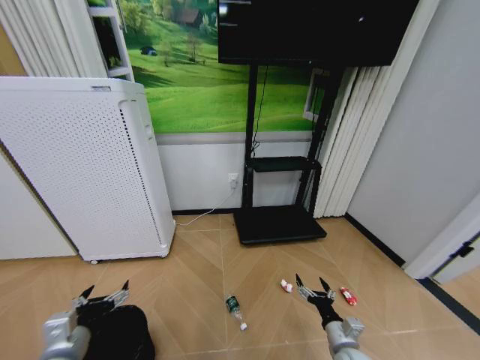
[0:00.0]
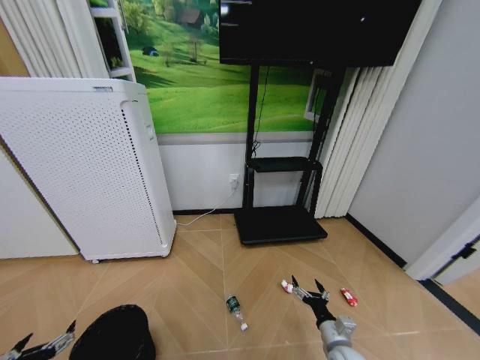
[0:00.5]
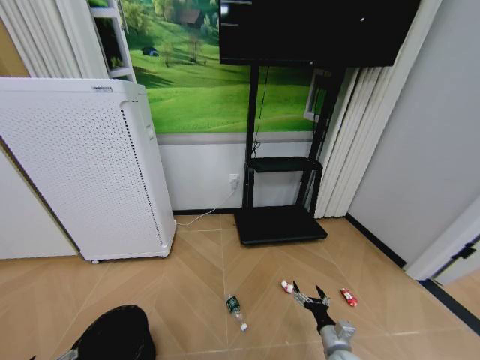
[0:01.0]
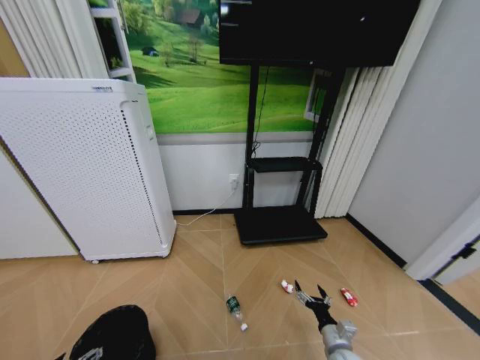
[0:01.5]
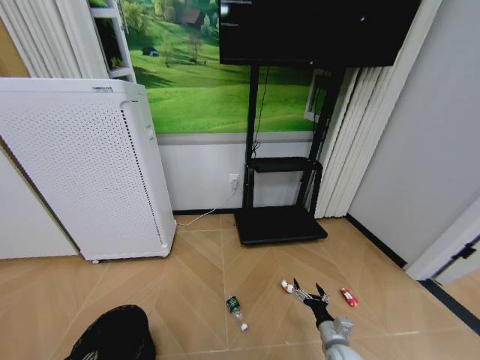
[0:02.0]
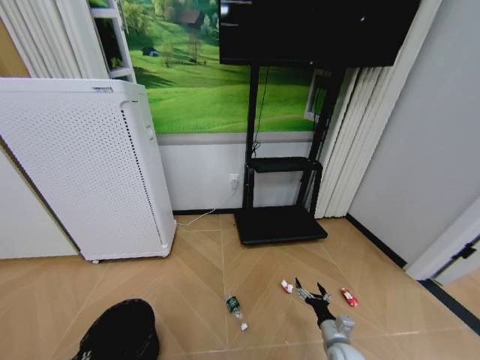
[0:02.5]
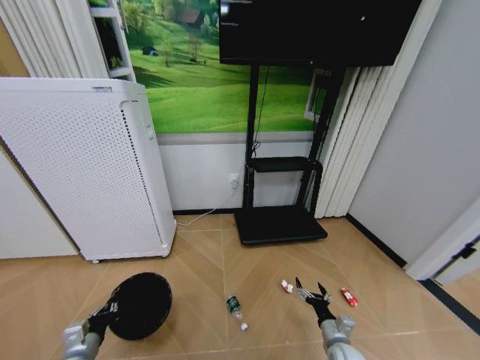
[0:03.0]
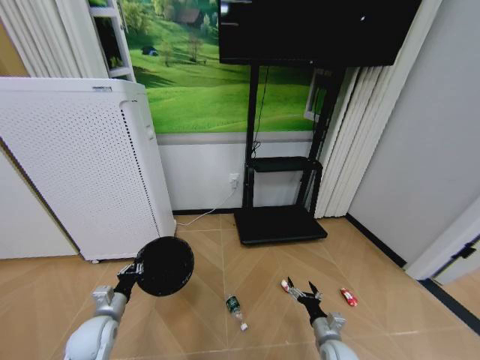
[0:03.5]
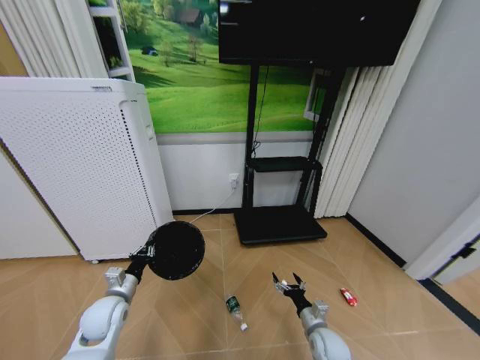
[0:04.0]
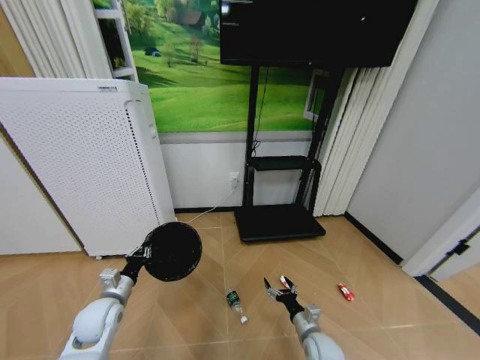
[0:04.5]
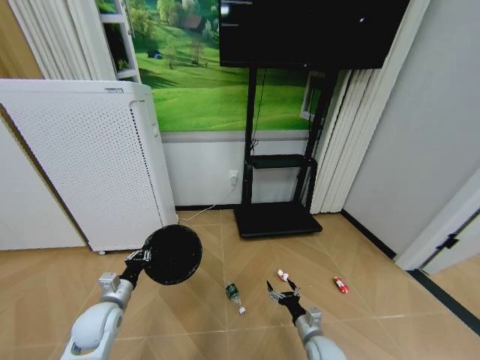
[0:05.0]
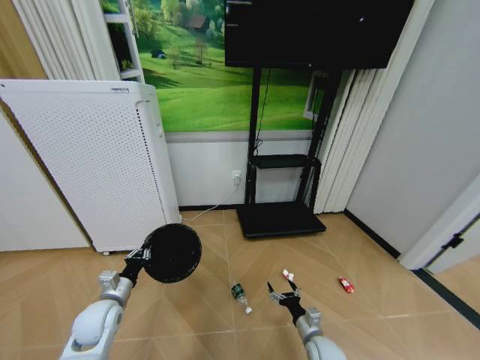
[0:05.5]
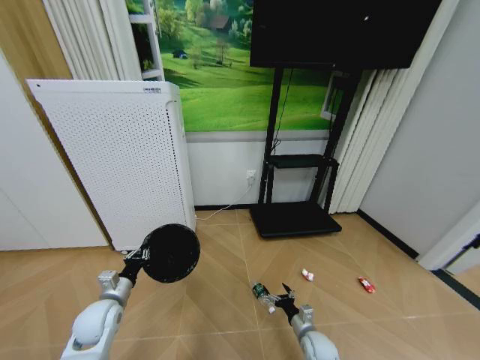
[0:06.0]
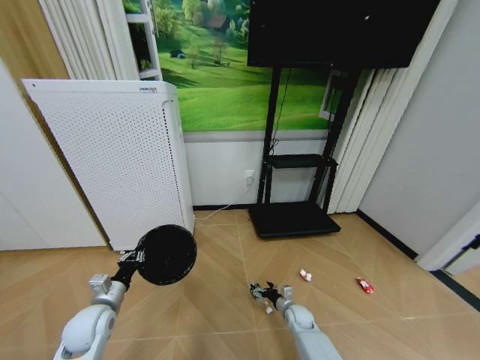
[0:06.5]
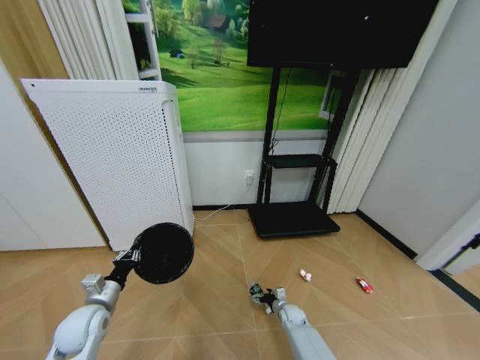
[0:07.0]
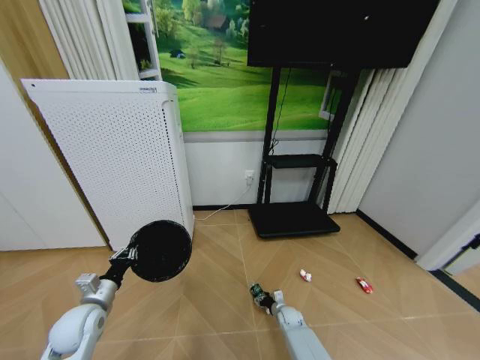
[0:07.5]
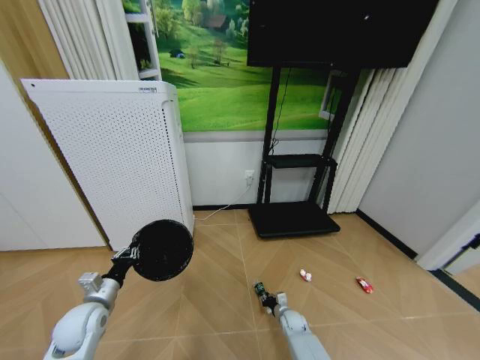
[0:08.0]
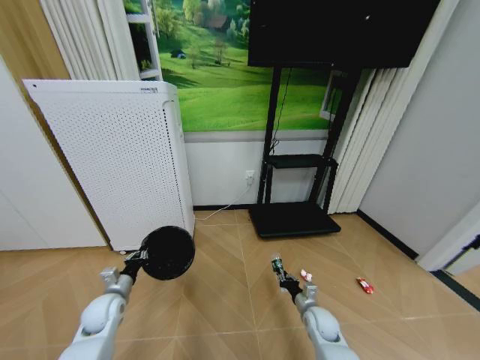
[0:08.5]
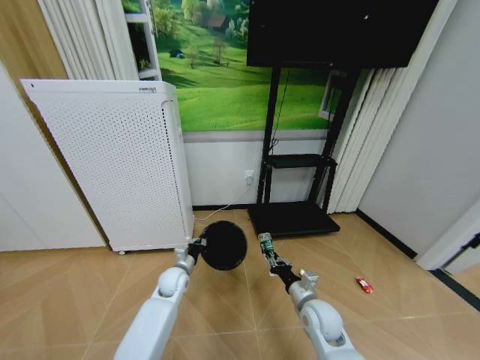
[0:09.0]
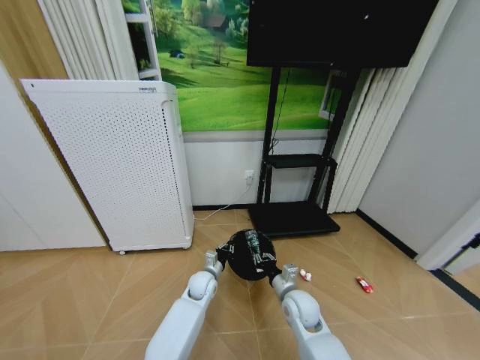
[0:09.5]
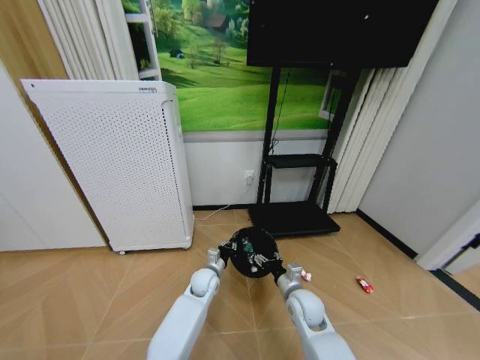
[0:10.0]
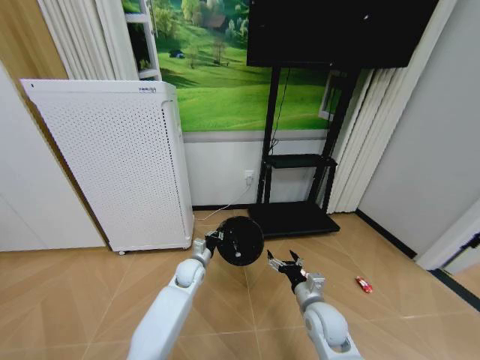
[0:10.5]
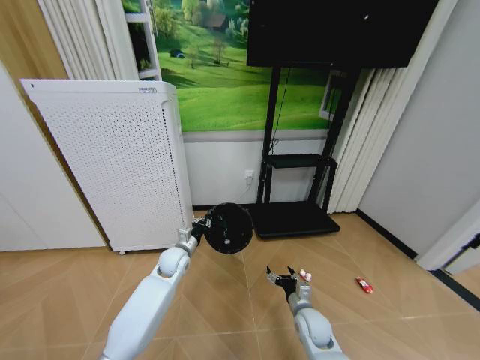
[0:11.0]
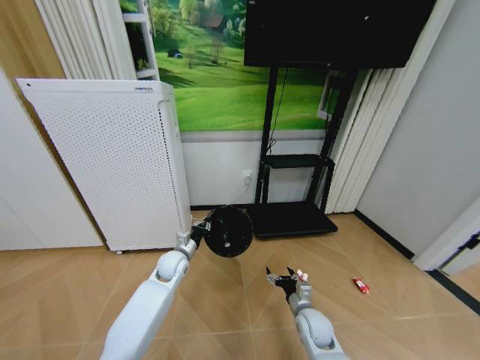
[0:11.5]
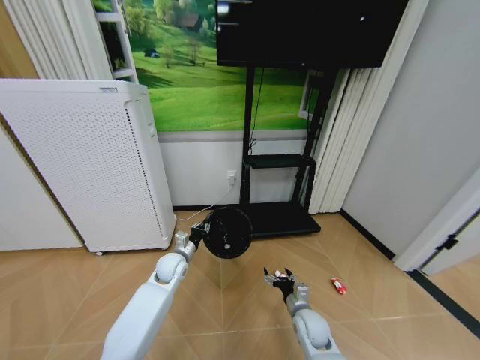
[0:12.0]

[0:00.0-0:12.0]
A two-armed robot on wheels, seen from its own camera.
Task of the whole recording: Pick up the trash bin and place the garbage on the floor into it.
0:00.0 to 0:02.0: The left gripper goes roughly 15 cm downward, to the left and backward, and closes its fingers. The right gripper is displaced downward by roughly 5 cm.
0:02.0 to 0:04.0: The left gripper moves forward and to the right, approximately 20 cm, and closes up, while the right gripper moves approximately 5 cm.
0:06.0 to 0:08.0: The right gripper is displaced forward and downward by approximately 15 cm, and closes its fingers.
0:08.0 to 0:10.0: The right gripper shifts roughly 25 cm upward, and opens its fingers, while the left gripper travels to the right and forward by some 30 cm.
0:10.0 to 0:12.0: The right gripper shifts some 5 cm downward; the left gripper is displaced to the left and upward by approximately 15 cm.

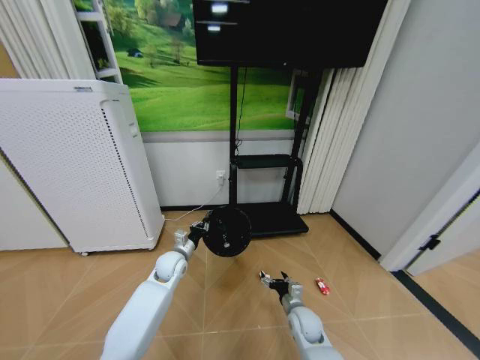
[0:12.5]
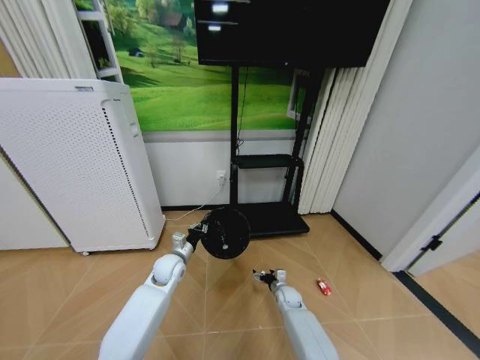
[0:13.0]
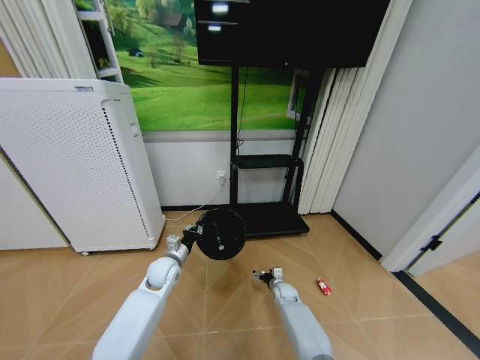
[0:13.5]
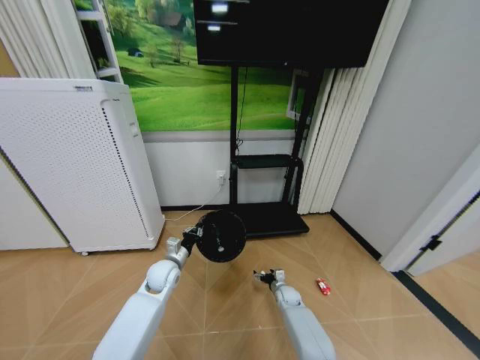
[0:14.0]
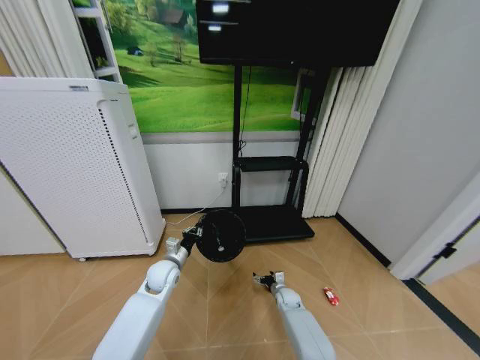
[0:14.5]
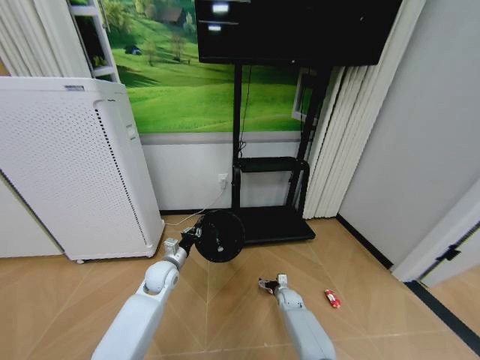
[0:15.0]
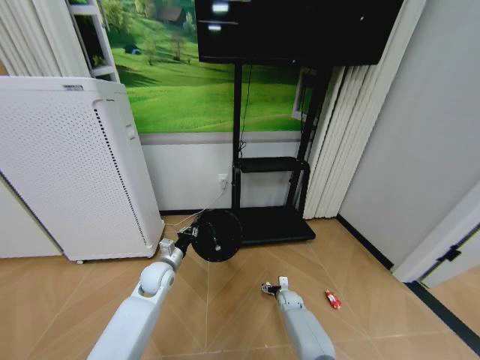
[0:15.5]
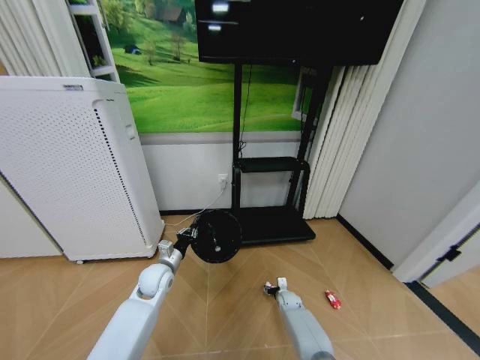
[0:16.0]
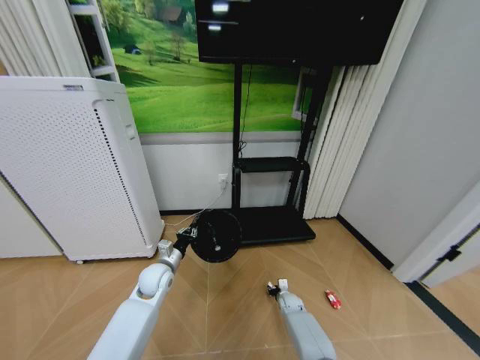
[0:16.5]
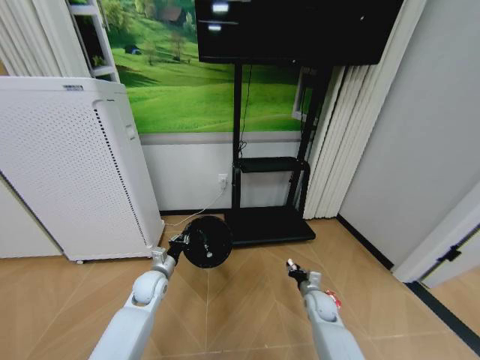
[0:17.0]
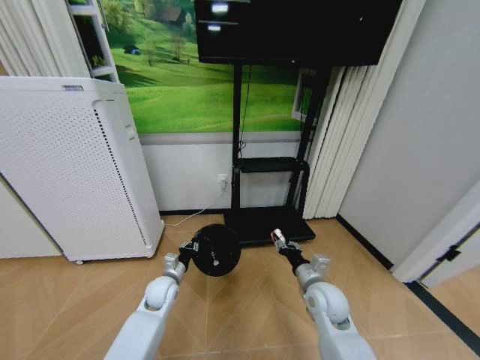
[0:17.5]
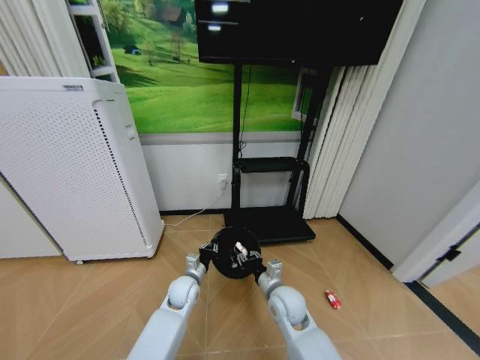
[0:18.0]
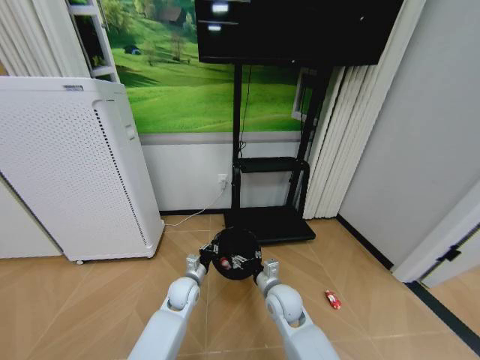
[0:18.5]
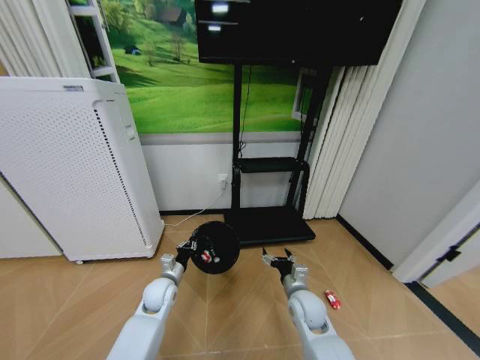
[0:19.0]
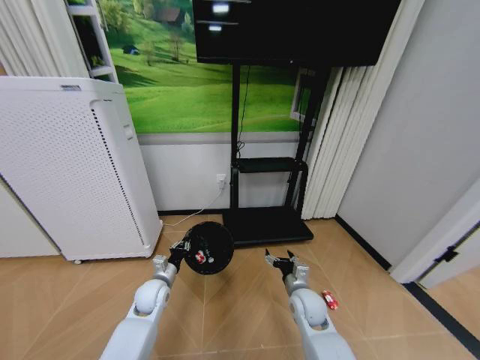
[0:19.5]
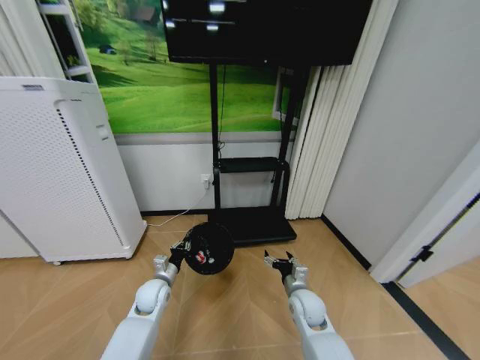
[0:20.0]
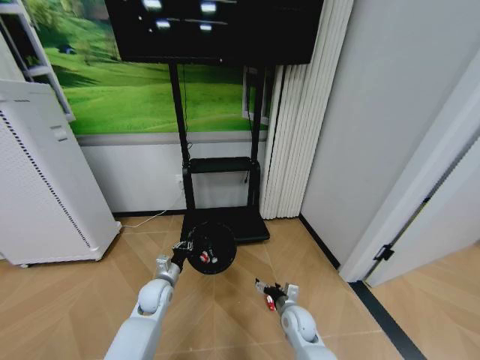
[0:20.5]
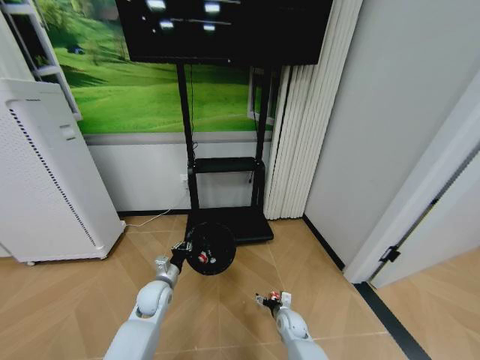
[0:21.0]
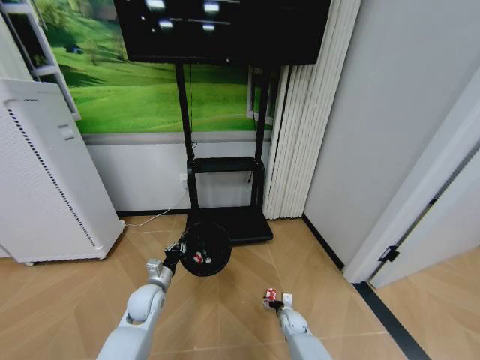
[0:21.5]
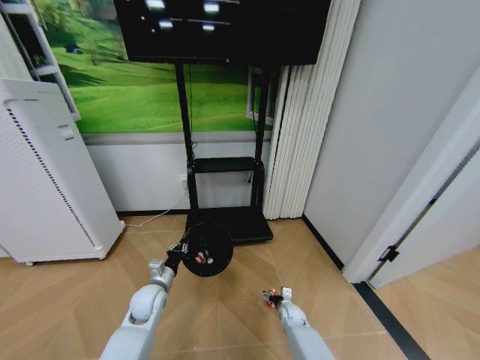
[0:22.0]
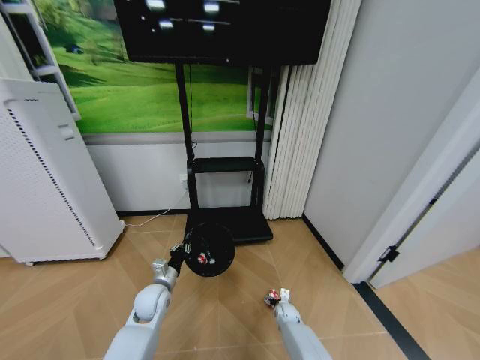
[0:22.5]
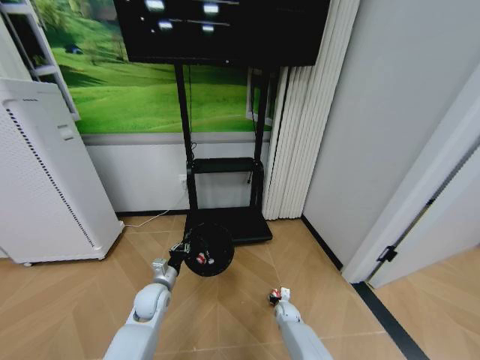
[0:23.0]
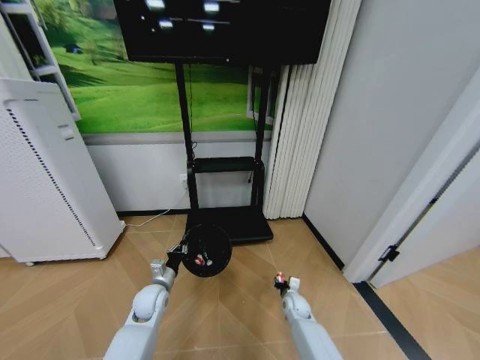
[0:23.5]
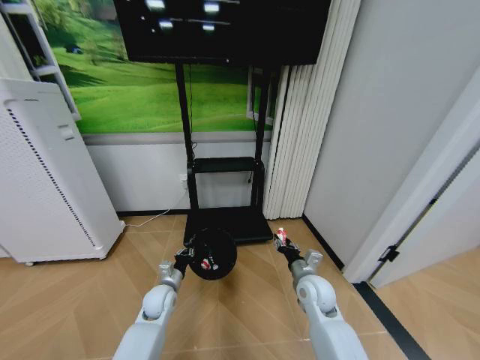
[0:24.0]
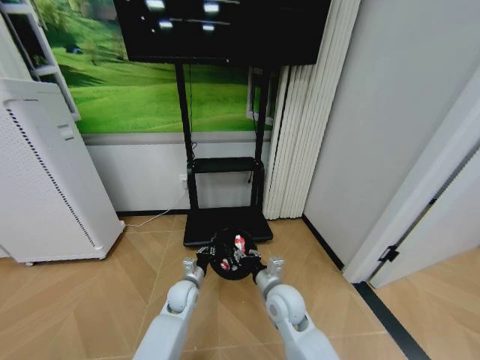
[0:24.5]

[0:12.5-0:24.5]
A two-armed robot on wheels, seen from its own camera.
Task of the whole recording: Pick up the trash bin and place the garbage on the floor into it.
0:12.5 to 0:14.5: The right gripper shifts about 15 cm forward and downward.
0:14.5 to 0:16.5: The right gripper closes its fingers.
0:16.5 to 0:18.5: The right gripper travels upward and to the left by roughly 30 cm, and opens its fingers. Meanwhile the left gripper goes roughly 10 cm to the right and downward.
0:18.5 to 0:20.5: The right gripper moves downward and to the right, about 10 cm; the left gripper moves to the left, some 10 cm.
0:20.5 to 0:22.5: The right gripper moves downward and forward, approximately 15 cm.
0:22.5 to 0:24.5: The left gripper goes roughly 10 cm to the right; the right gripper travels upward by about 30 cm, and closes.

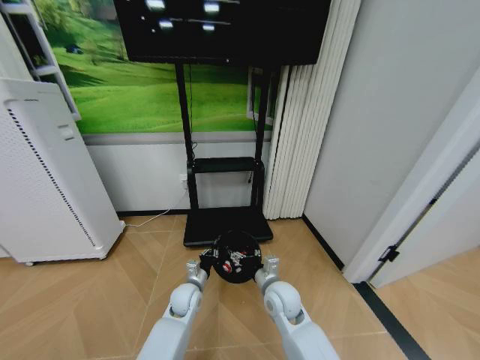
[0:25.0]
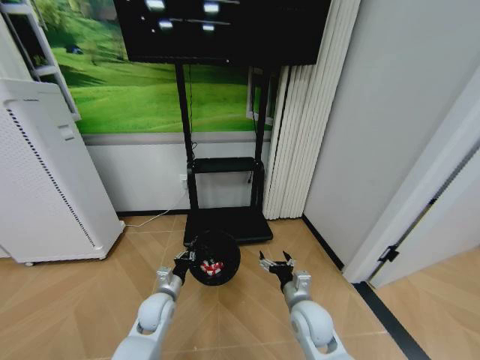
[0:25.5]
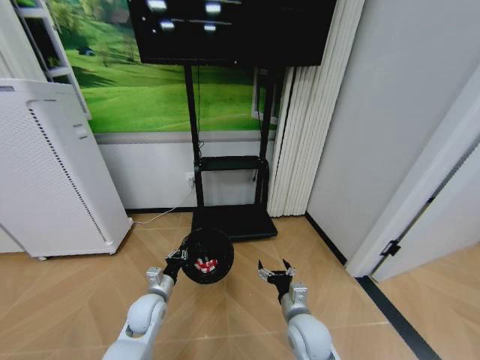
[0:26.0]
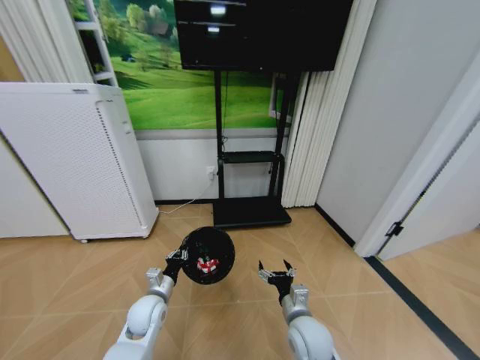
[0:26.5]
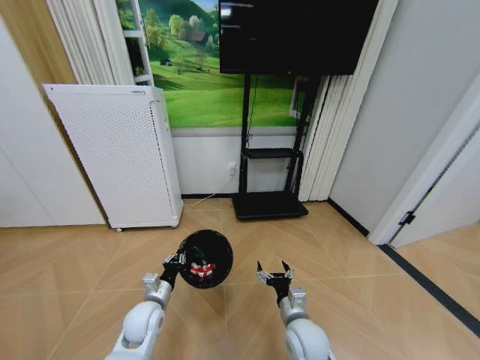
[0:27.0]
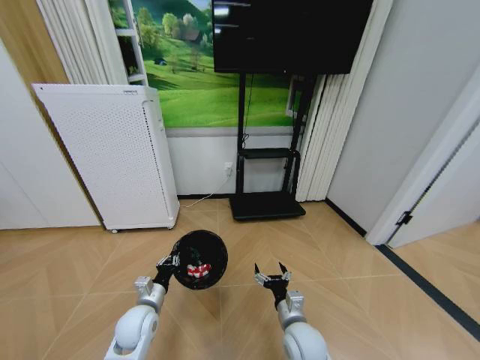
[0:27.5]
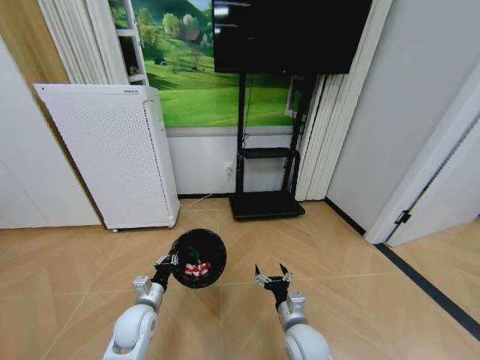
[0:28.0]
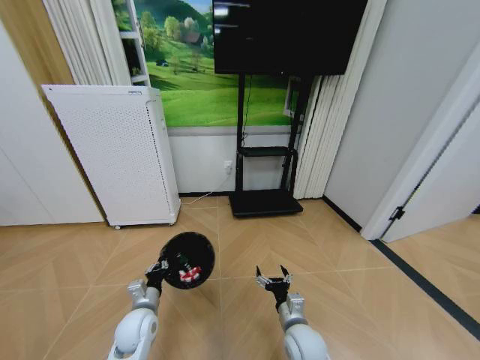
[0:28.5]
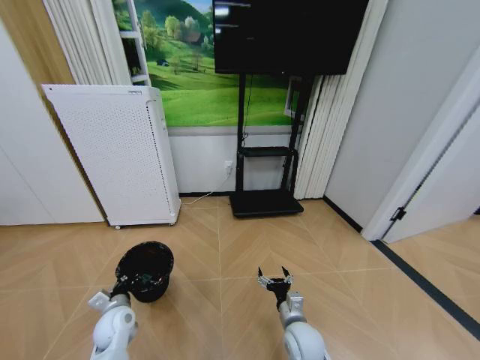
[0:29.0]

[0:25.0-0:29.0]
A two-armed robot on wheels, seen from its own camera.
Task of the whole recording: Pick up the trash bin and place the garbage on the floor into it.
0:25.0 to 0:27.0: The right gripper is displaced backward by approximately 10 cm. Meanwhile the left gripper is displaced to the left and backward by roughly 10 cm.
0:27.0 to 0:29.0: The left gripper travels to the left by roughly 10 cm.
